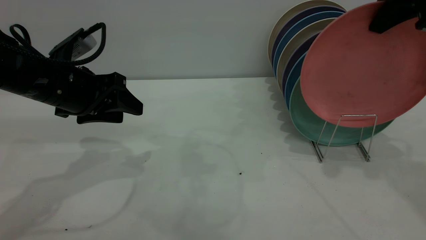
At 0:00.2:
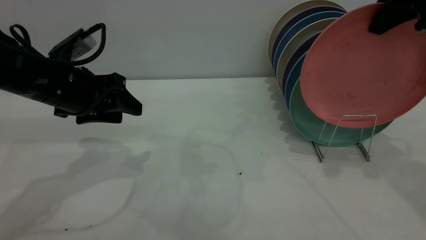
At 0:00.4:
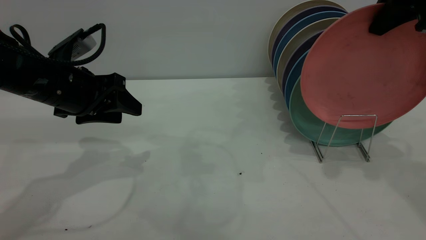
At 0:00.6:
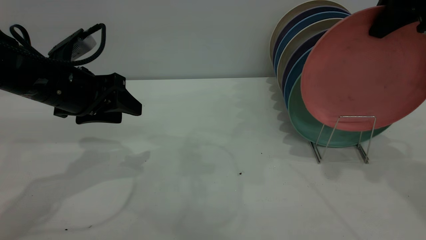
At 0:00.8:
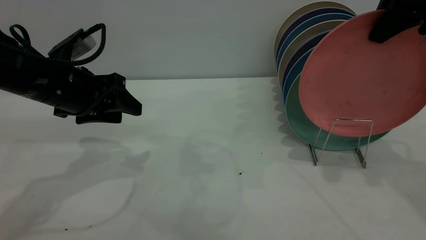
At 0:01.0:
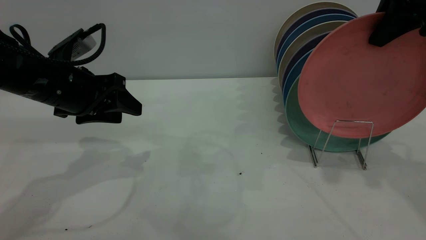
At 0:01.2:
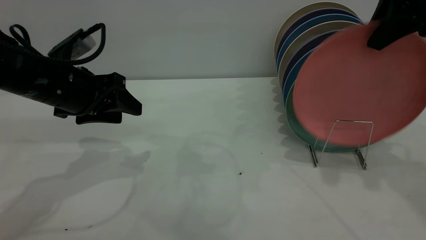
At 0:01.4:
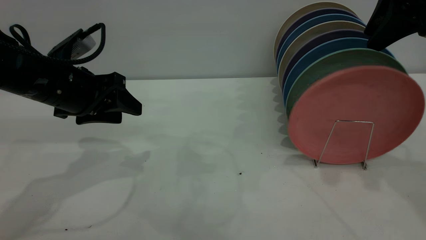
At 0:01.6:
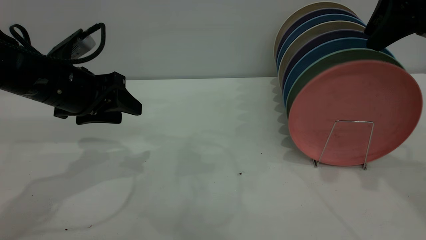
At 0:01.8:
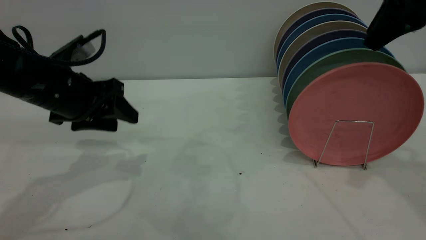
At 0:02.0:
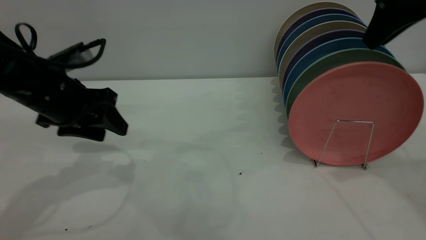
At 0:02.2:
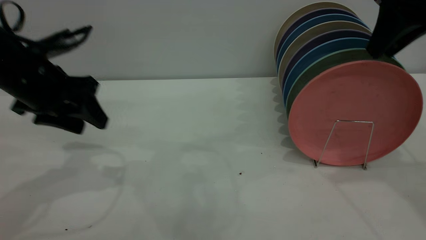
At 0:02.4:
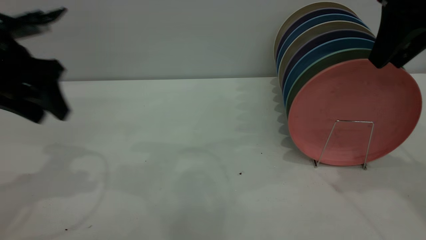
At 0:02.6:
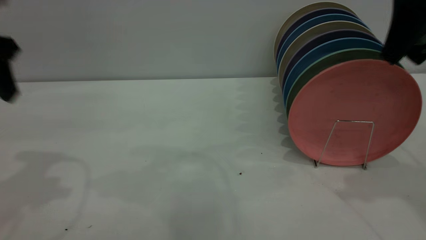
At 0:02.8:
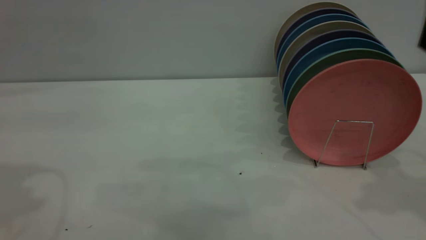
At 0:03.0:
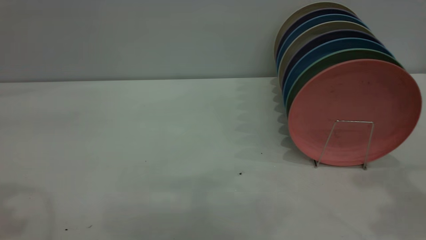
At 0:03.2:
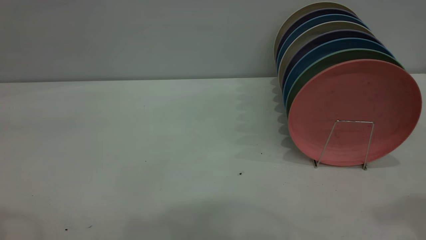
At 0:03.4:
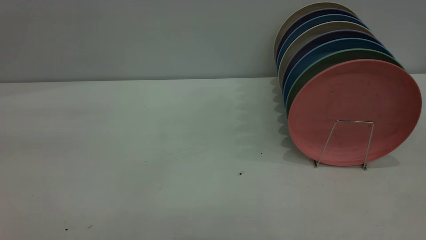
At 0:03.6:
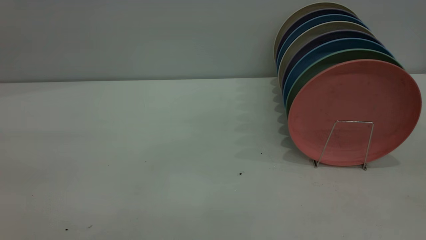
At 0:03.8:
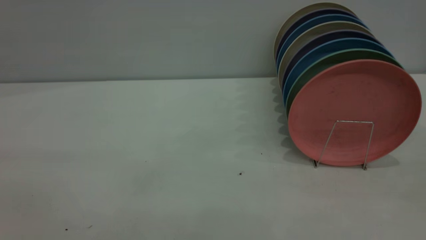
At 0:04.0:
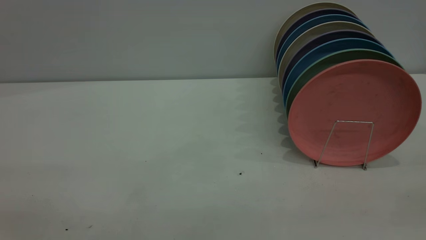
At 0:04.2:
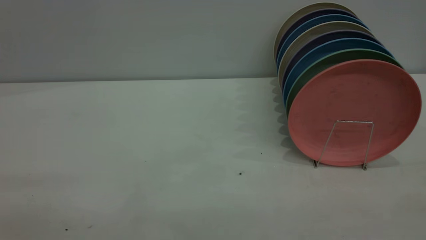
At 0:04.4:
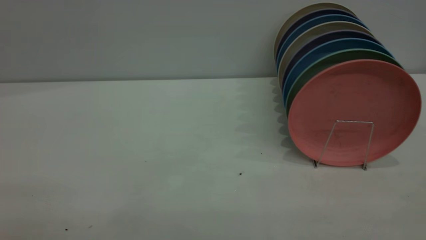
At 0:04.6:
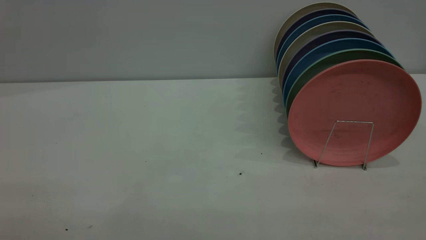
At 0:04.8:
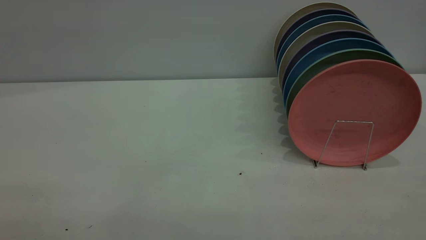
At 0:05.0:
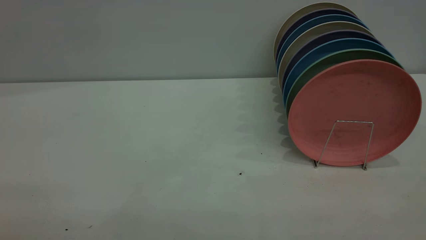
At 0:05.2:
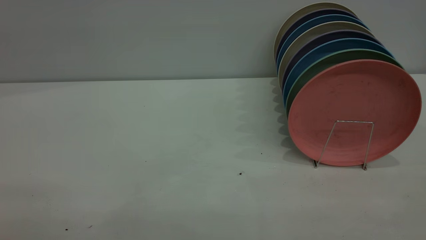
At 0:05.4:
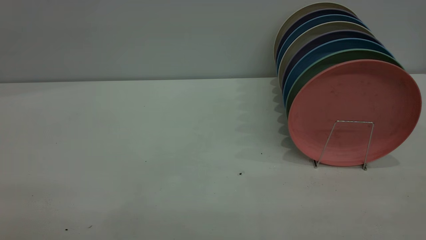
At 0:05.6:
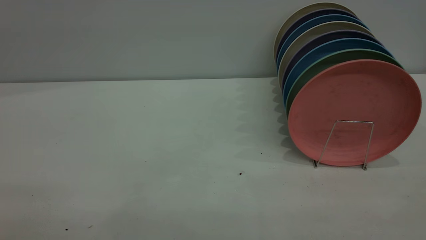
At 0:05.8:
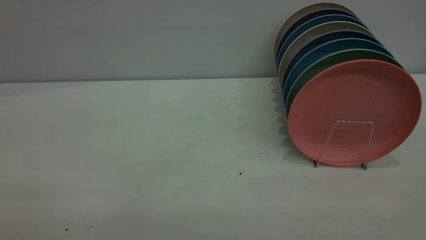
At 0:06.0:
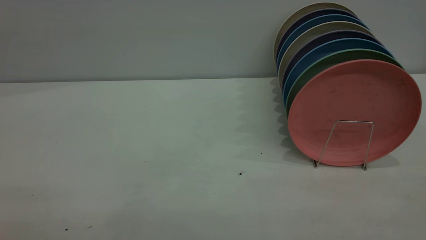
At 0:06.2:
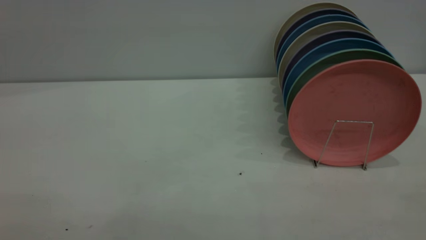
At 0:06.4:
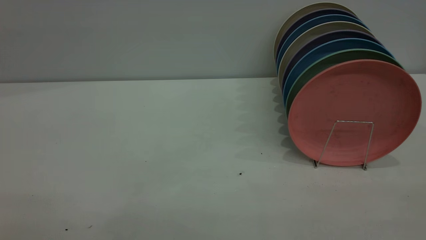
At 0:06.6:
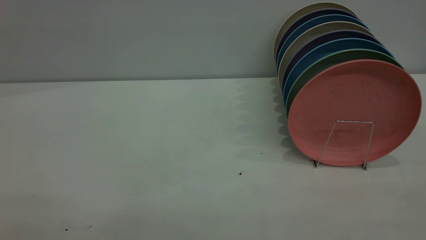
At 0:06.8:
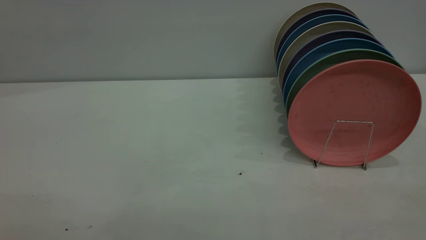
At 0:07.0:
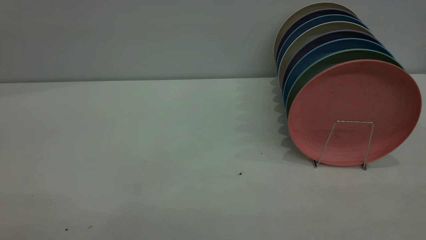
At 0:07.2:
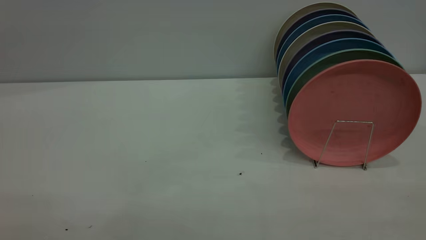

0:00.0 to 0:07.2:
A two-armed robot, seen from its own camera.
Task of the whole recording: the left gripper grasp the pink plate, the left gripper pass the pink plate to the right gripper, and the right gripper place the pink plate on the plate rack.
Step, 0:00.0 to 0:02.6: Place the plate on the shelf.
0:00.0 to 0:01.4: The right gripper opens.
0:01.4 to 0:02.8: The left gripper is displaced upward by approximately 20 cm. Meanwhile the right gripper heads backward, covering some 5 cm, and opens its fingers.
0:04.4 to 0:05.8: Both grippers stay put.

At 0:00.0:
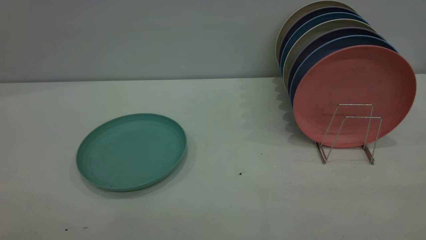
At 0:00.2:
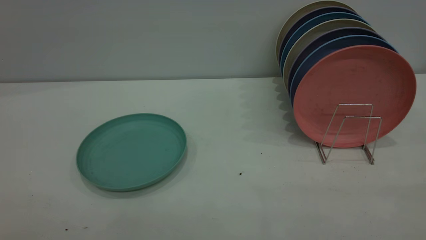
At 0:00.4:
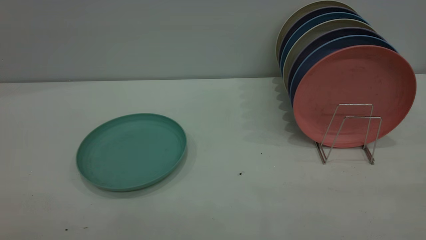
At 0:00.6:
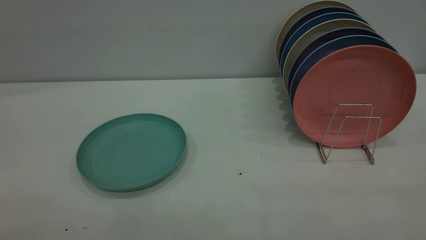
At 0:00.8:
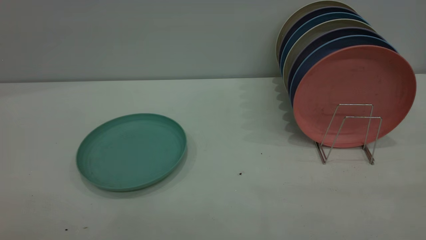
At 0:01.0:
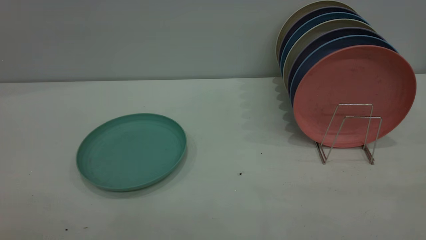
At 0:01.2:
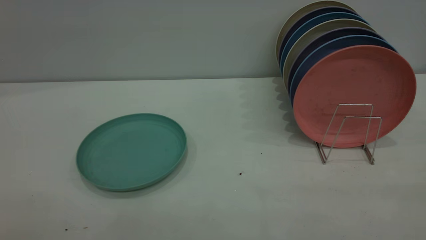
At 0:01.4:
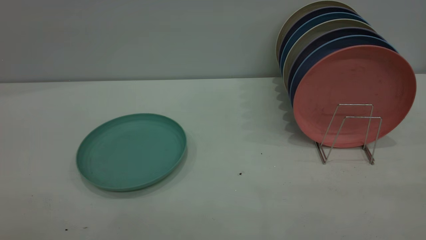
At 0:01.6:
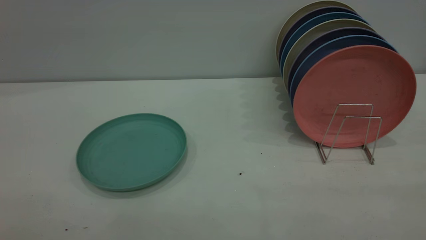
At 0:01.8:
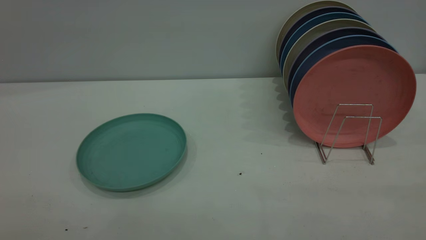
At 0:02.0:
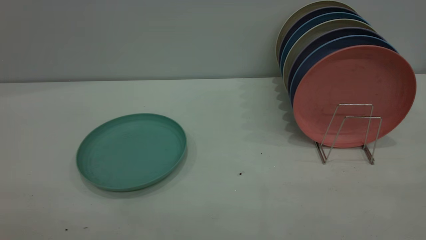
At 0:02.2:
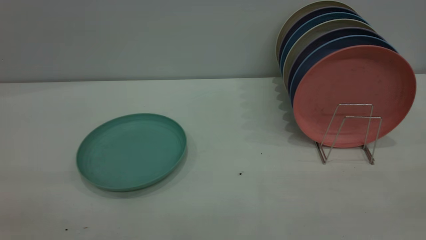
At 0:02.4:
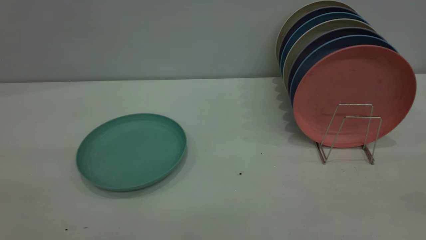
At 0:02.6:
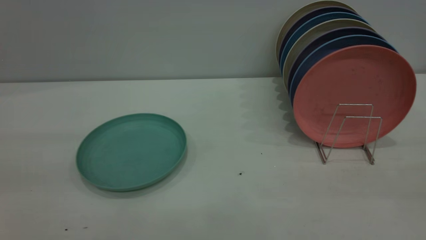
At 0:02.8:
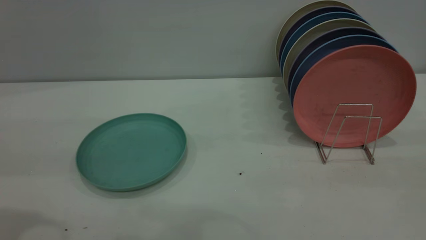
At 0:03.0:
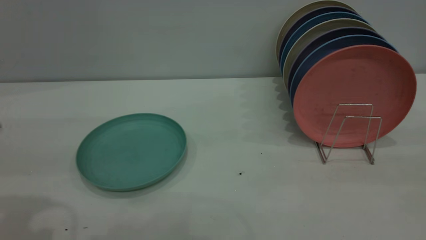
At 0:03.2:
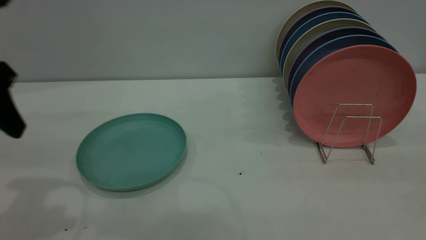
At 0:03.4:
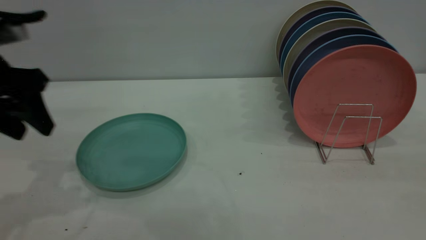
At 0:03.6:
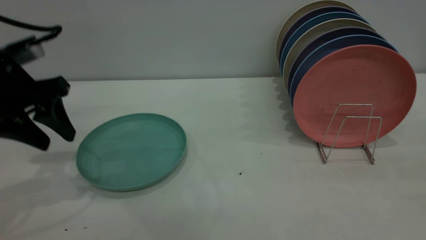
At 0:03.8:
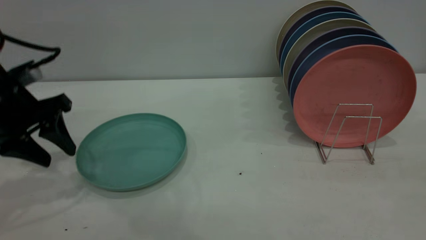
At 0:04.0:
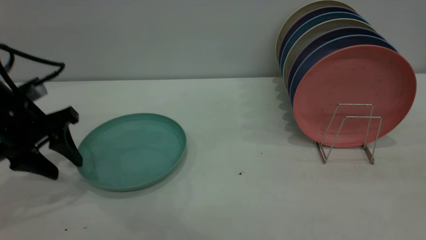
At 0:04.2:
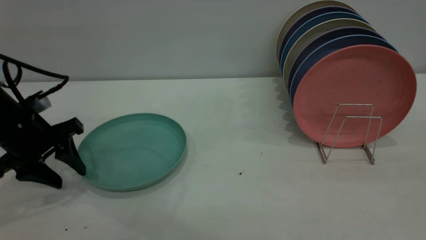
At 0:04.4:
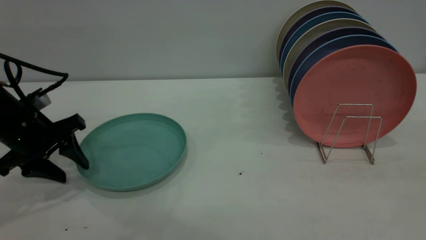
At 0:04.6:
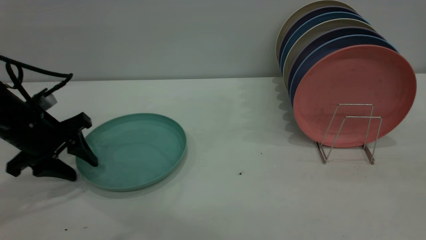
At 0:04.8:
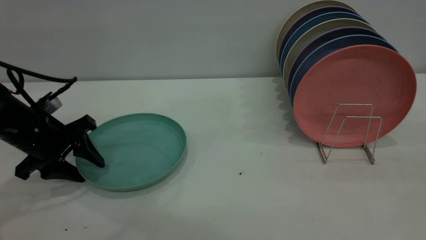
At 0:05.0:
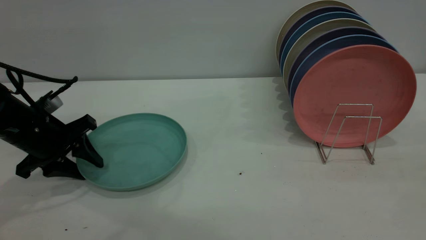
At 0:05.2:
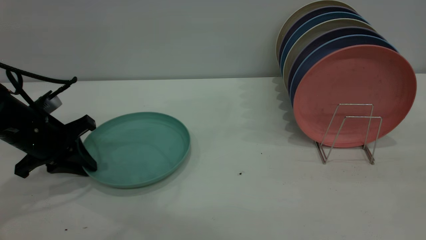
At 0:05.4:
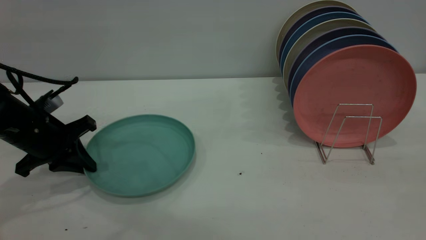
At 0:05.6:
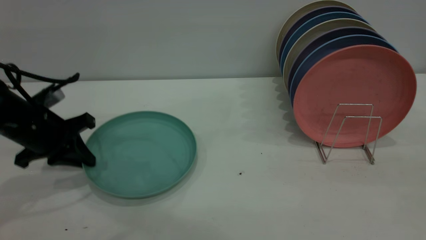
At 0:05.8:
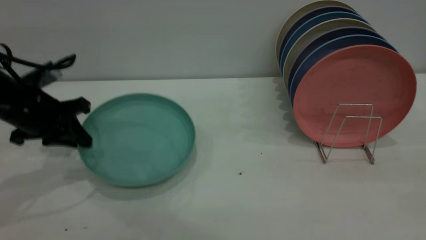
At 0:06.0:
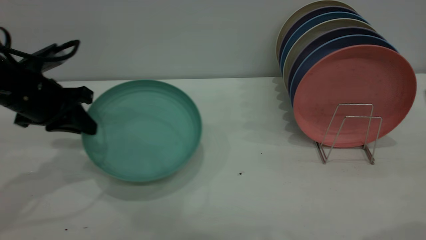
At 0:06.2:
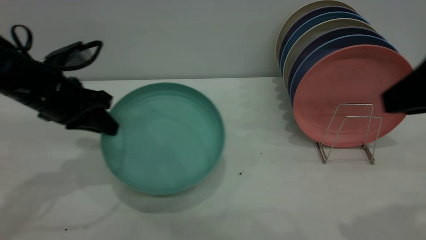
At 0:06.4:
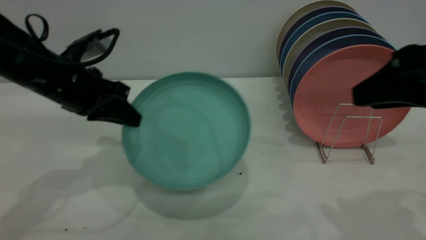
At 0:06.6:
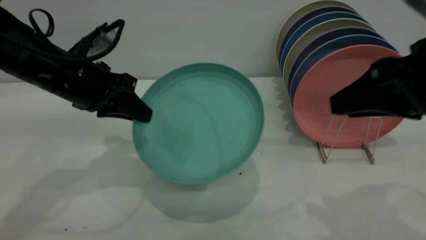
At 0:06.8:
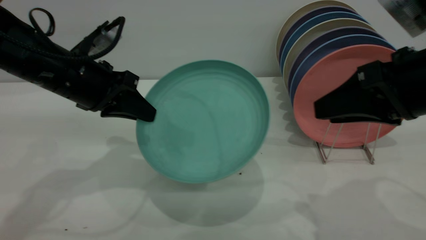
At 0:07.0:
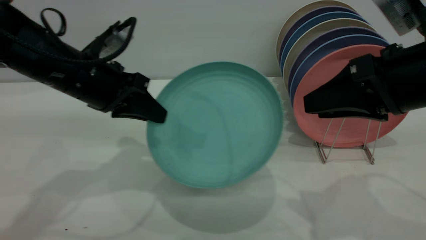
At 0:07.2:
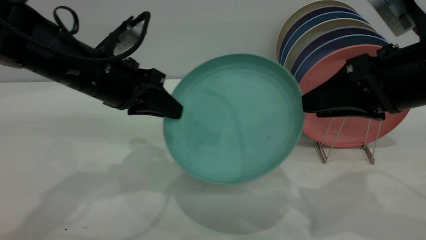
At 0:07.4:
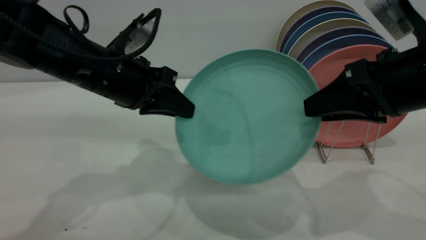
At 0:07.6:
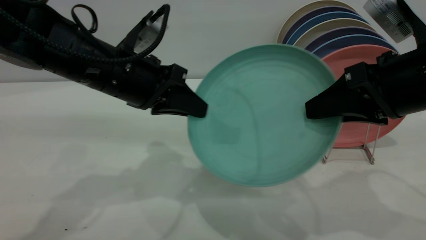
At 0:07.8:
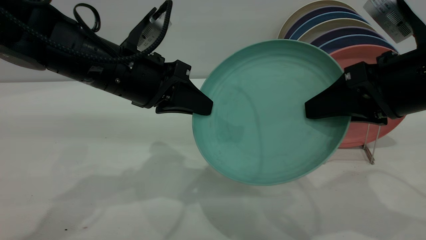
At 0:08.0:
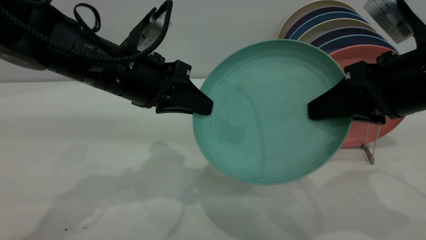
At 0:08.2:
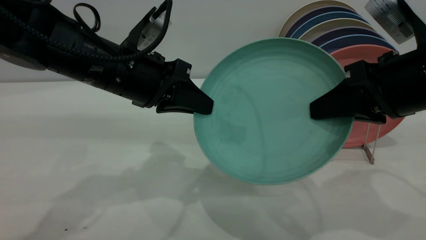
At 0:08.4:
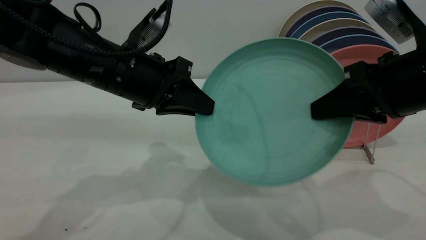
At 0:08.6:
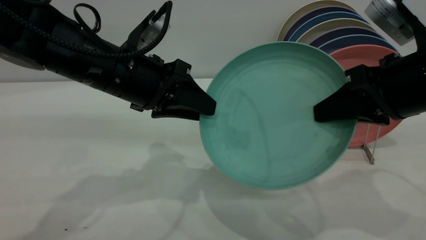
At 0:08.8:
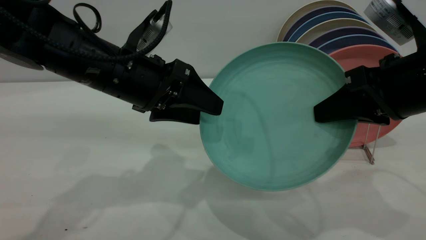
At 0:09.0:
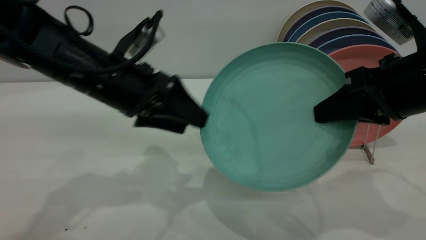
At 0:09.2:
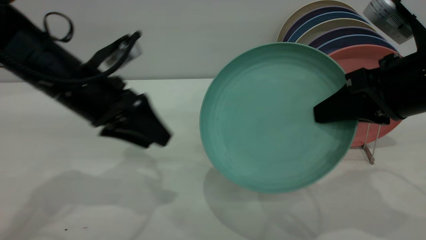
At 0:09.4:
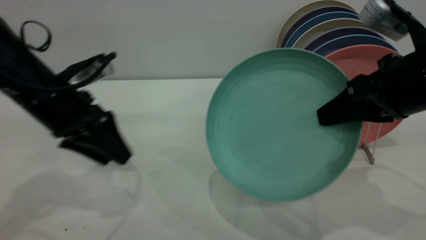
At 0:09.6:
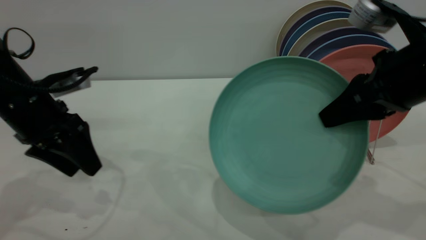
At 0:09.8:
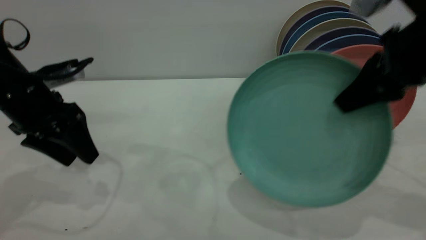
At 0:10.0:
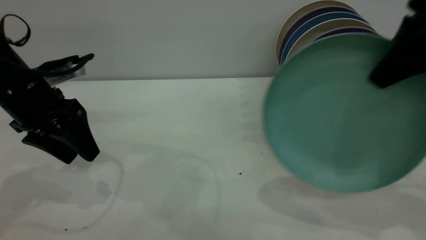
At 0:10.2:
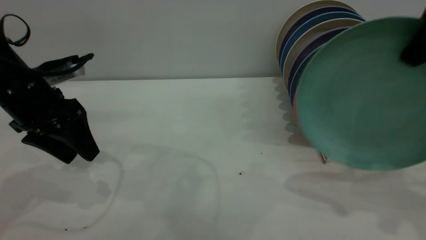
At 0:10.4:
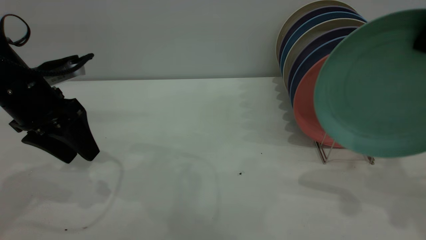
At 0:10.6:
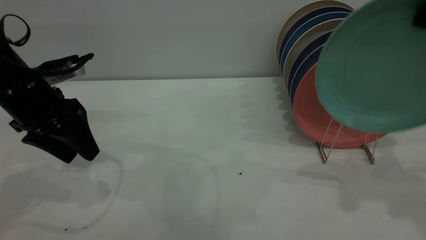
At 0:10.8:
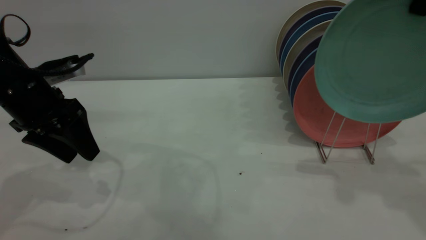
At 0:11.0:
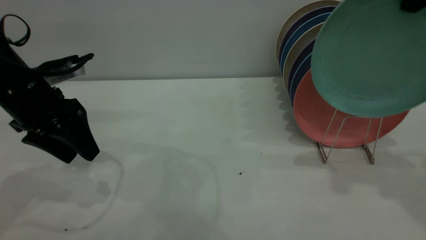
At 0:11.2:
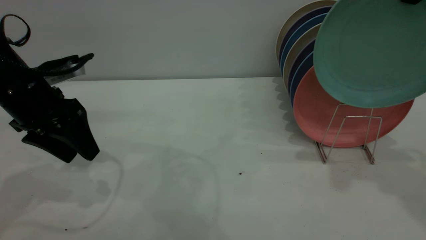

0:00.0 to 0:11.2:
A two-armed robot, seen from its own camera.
Task of the whole recording: the left gripper grasp the green plate, the left gripper pass the green plate to the right gripper, and the right gripper place the green plate on the plate rack.
Step, 0:00.0 to 0:05.6: Pick up the plate with the left gripper.
Step, 0:05.8 to 0:09.2: Pass the plate from the left gripper to the right gripper.
0:00.0 to 0:01.6: Both grippers stay put.
0:01.6 to 0:03.2: The left gripper is displaced forward by some 30 cm.
0:03.2 to 0:04.8: The left gripper travels downward and forward by some 20 cm.
0:04.8 to 0:06.4: The right gripper moves forward and downward, roughly 15 cm; the left gripper travels upward and to the right by approximately 10 cm, and closes up.
0:06.4 to 0:08.0: The left gripper travels to the right by approximately 10 cm; the right gripper shifts by roughly 5 cm, and closes its fingers.
0:08.0 to 0:09.6: The left gripper goes approximately 15 cm to the left, and opens its fingers.
0:09.6 to 0:11.2: The right gripper travels upward by approximately 15 cm.
